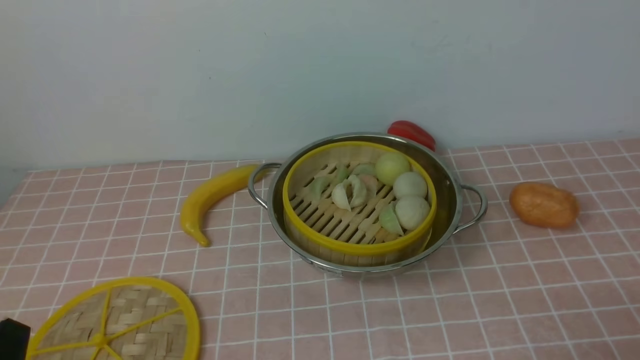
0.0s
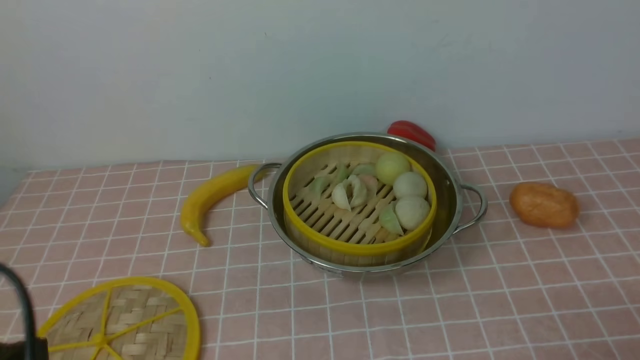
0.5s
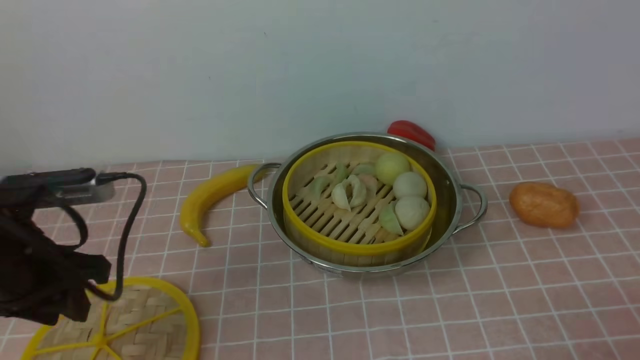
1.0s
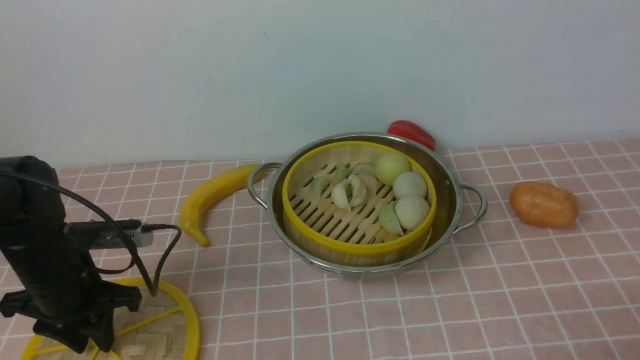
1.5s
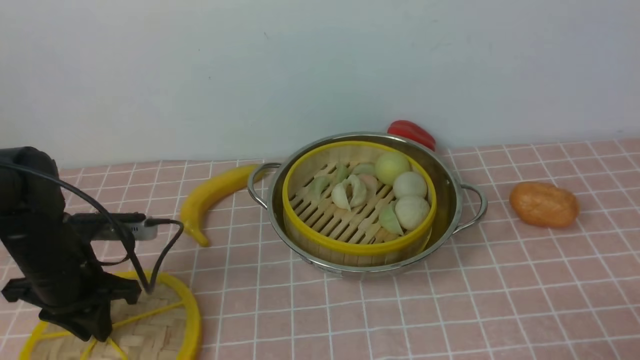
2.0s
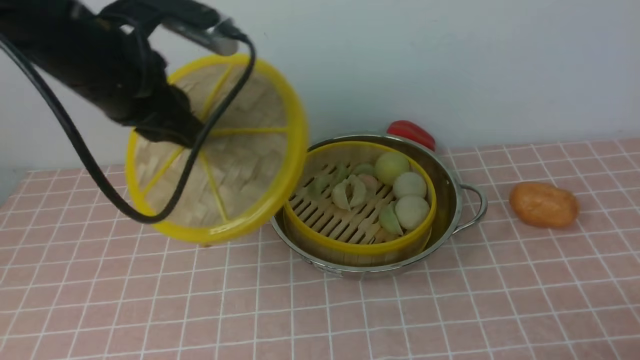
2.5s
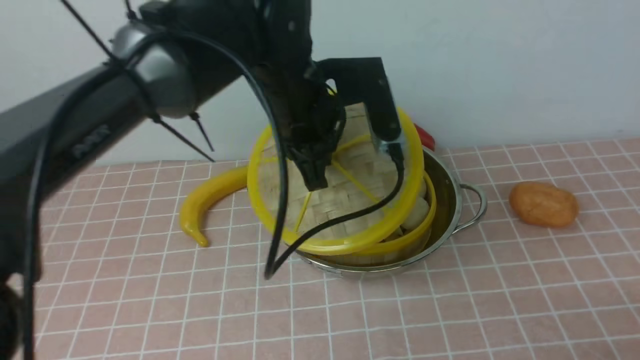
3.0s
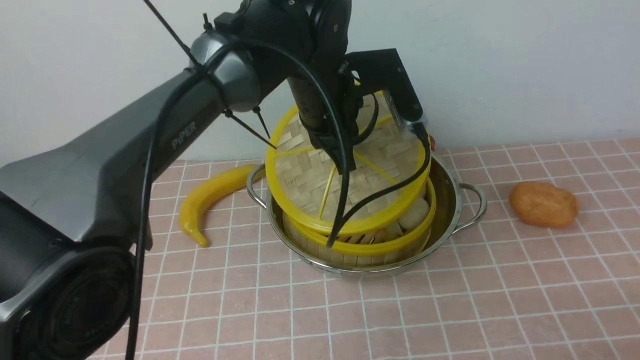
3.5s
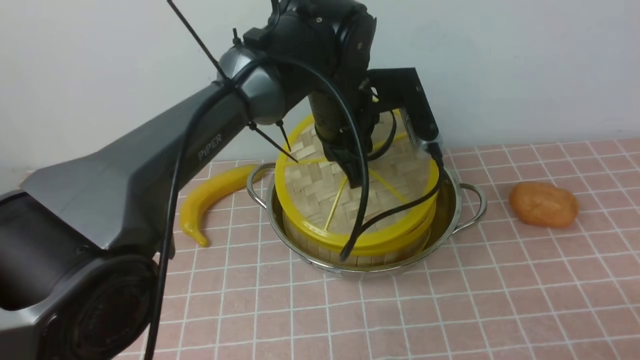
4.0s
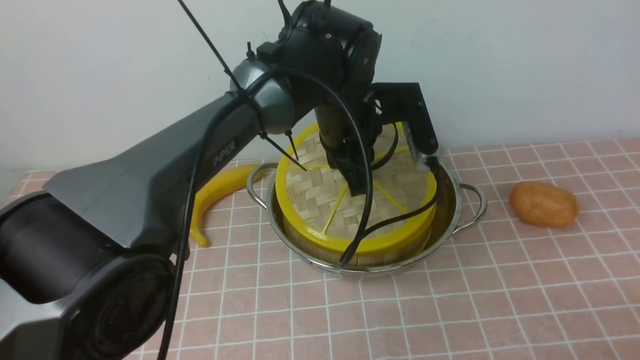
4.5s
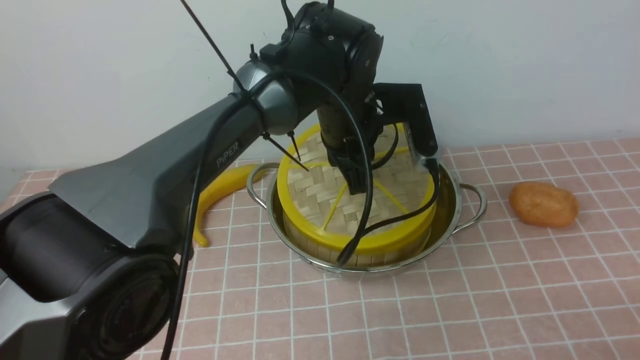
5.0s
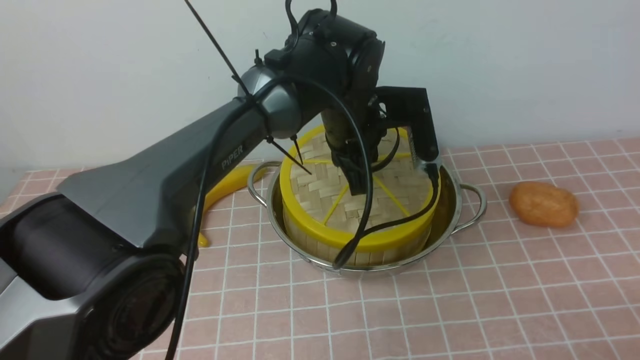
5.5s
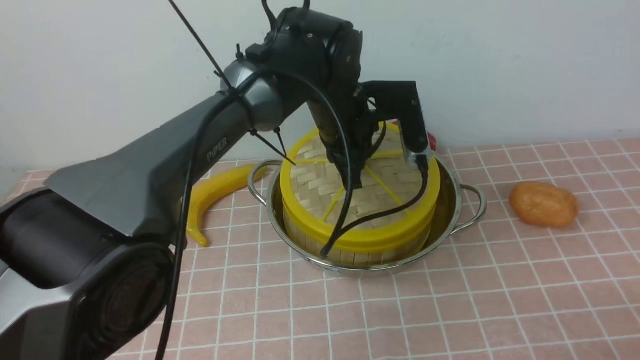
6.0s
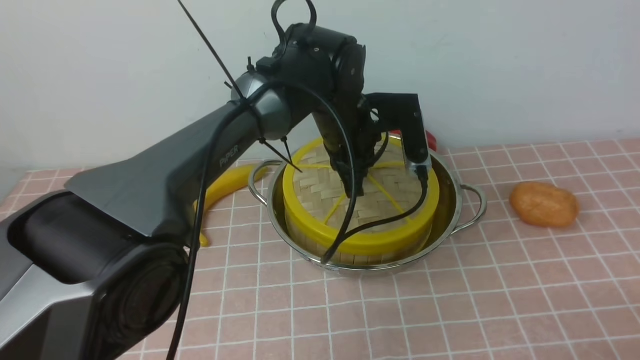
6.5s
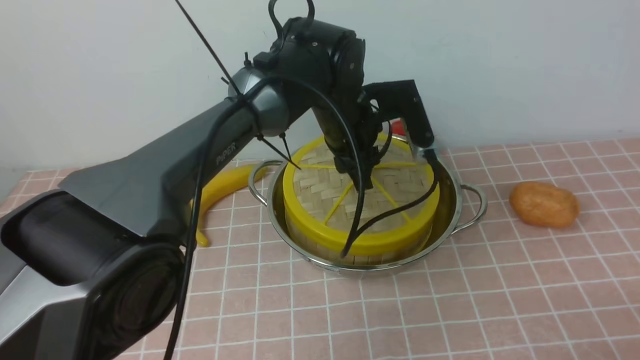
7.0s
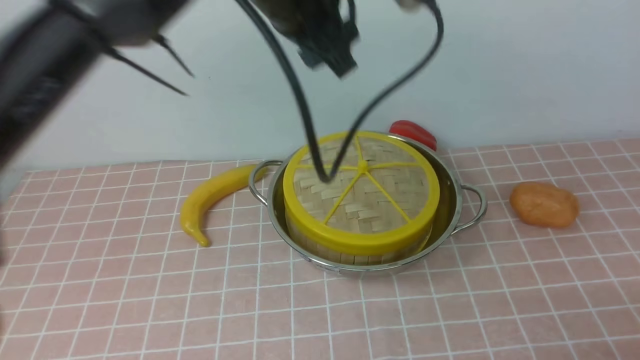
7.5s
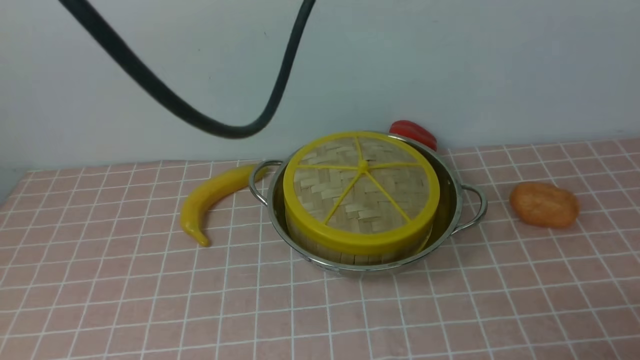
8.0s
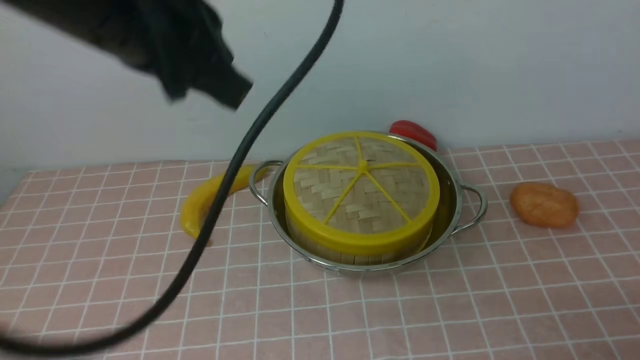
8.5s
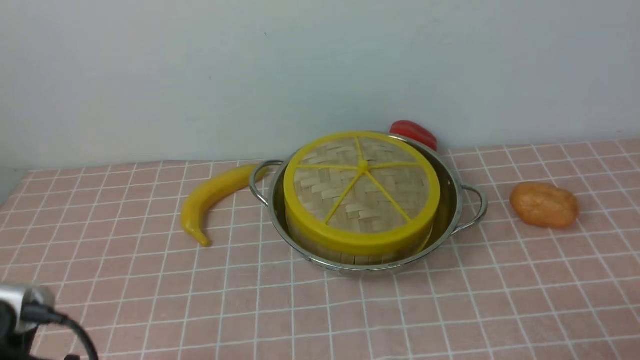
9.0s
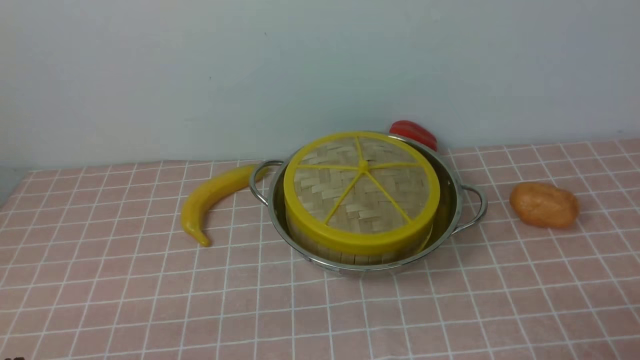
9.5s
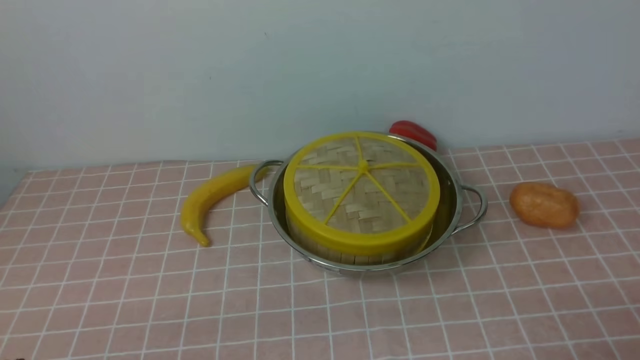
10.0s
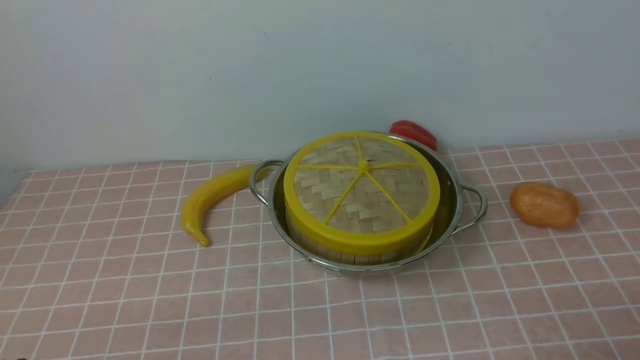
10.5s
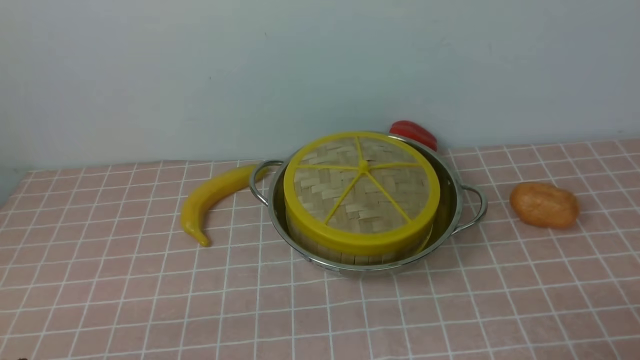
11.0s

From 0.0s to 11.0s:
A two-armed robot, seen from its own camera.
Task of the whole recording: place the steamer in the pot on the pink tablecloth, and put the lid on the steamer.
Step, from 0.0s to 2.0s: use the left arm to lift the lid of the steamer.
Step, from 2.5s to 7.0s: use the left arm to place the steamer lid on the steamer.
From 0.0s to 2.0s: The left gripper shifts roughly 25 cm forward.
From 2.0s to 3.5s: The left gripper travels to the right, forward and upward by about 30 cm.
From 5.5s to 7.5s: The left gripper goes about 10 cm upward, and opens up.
From 7.5s to 9.0s: The left gripper heads backward and to the left, covering about 35 cm, and closes up.
From 9.0s to 11.0s: The left gripper travels downward and backward by some 10 cm.

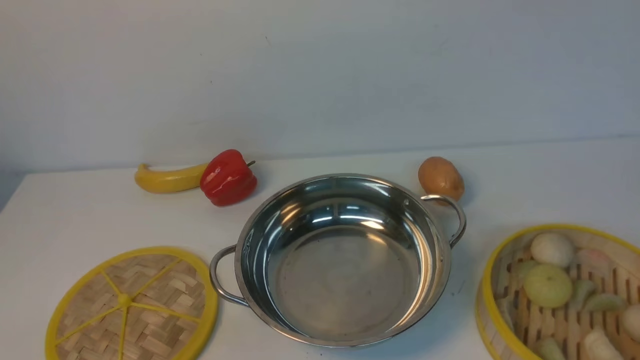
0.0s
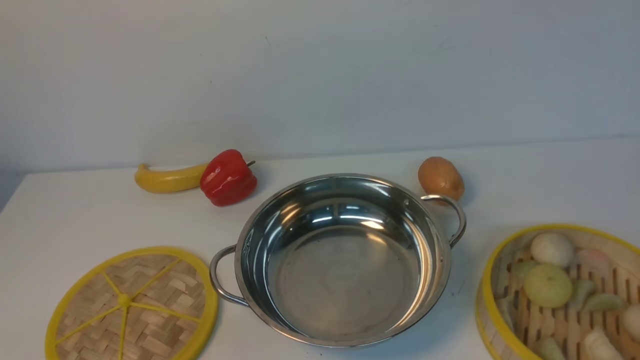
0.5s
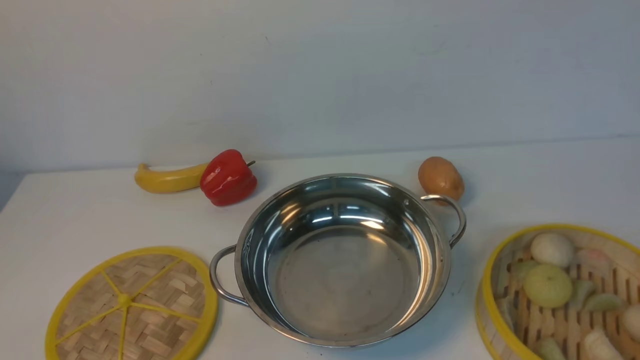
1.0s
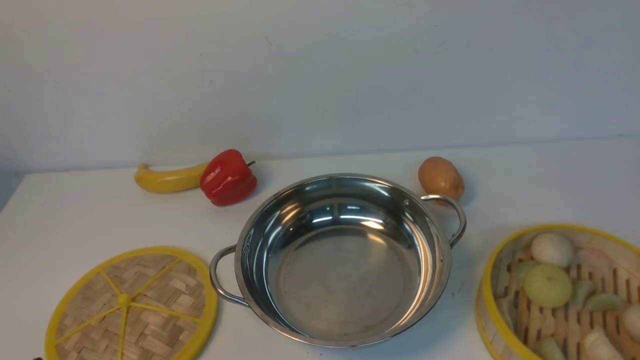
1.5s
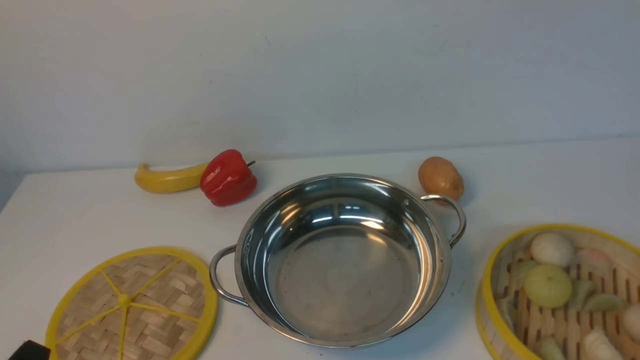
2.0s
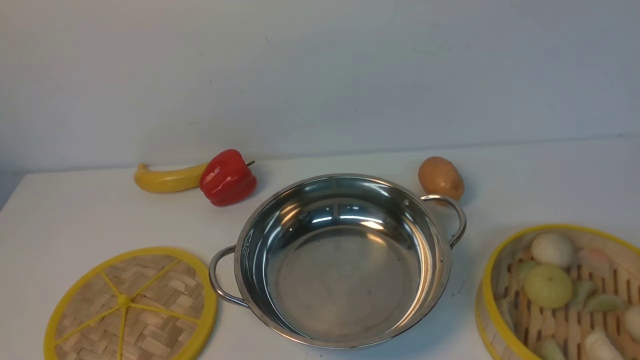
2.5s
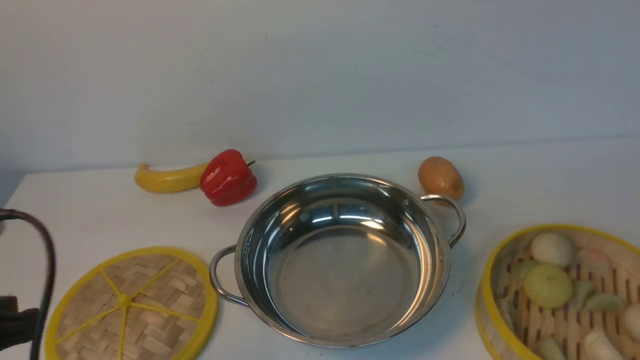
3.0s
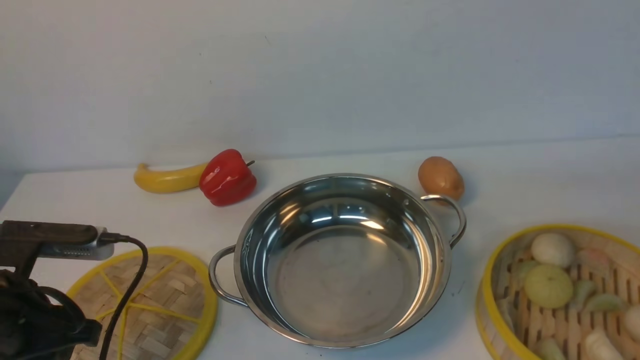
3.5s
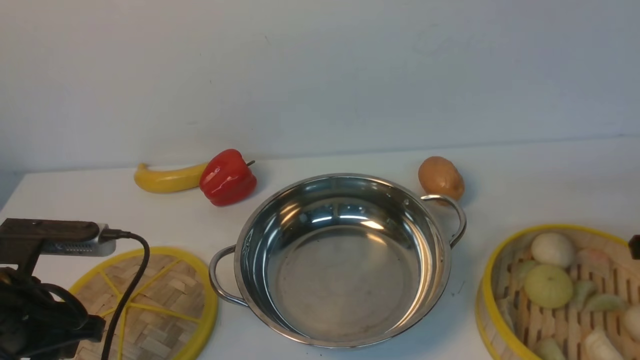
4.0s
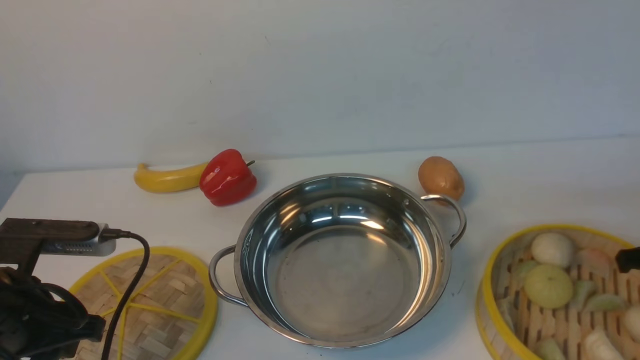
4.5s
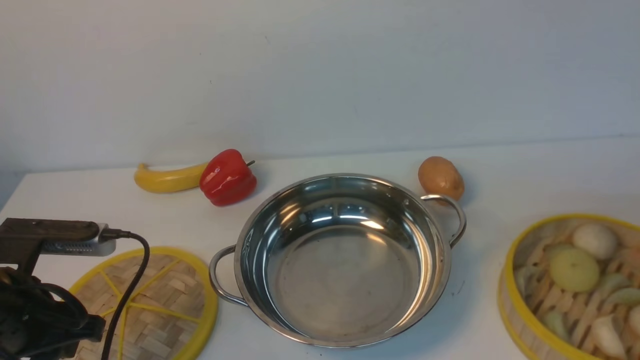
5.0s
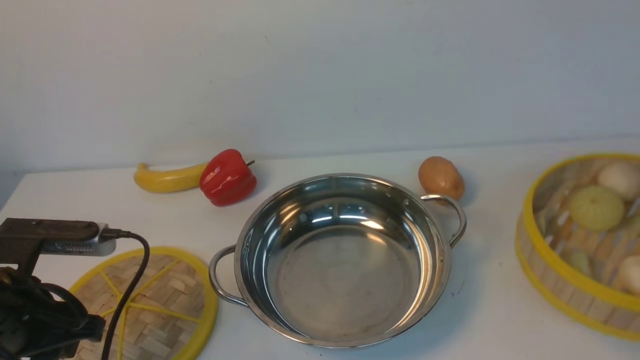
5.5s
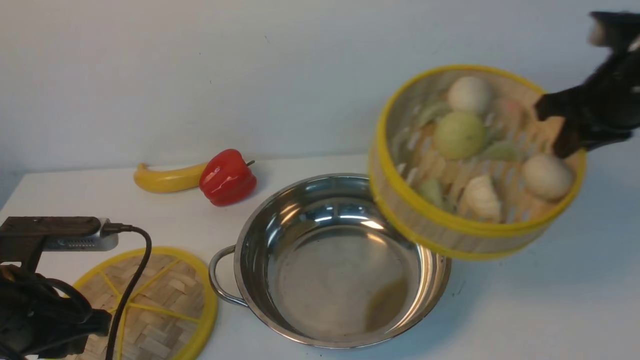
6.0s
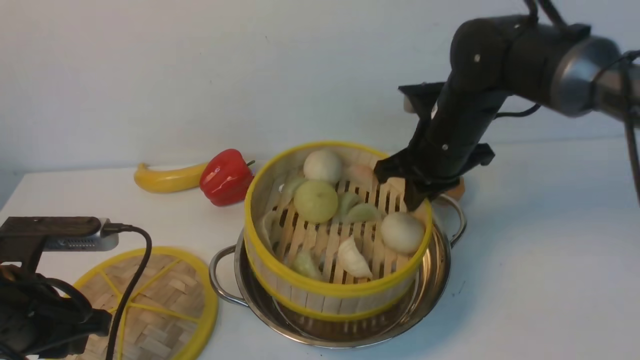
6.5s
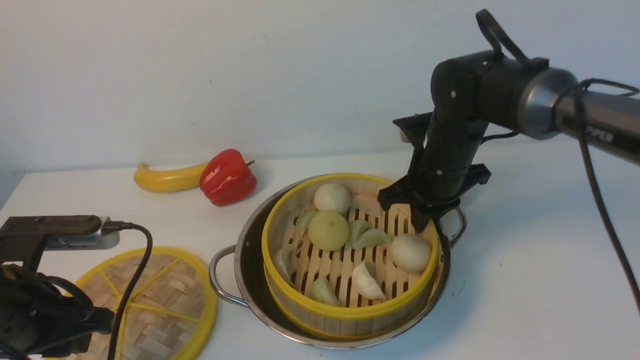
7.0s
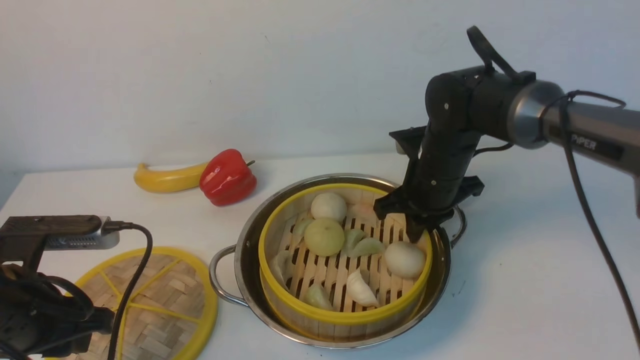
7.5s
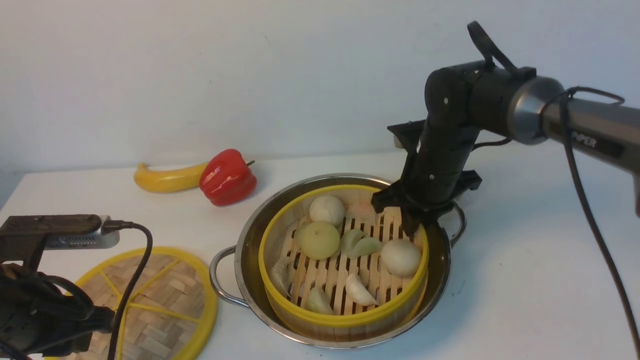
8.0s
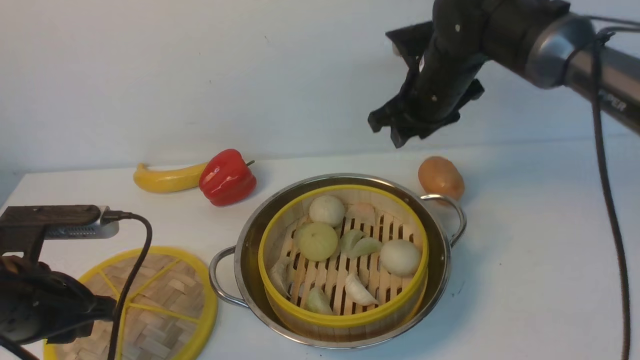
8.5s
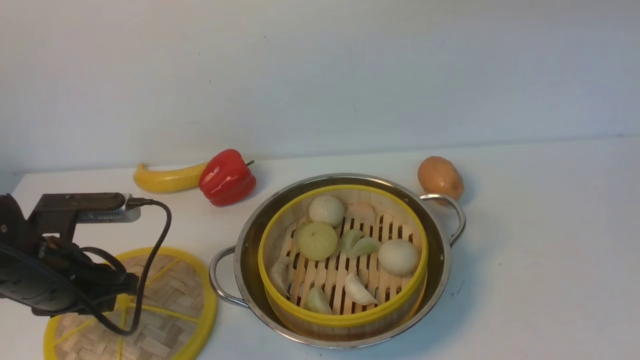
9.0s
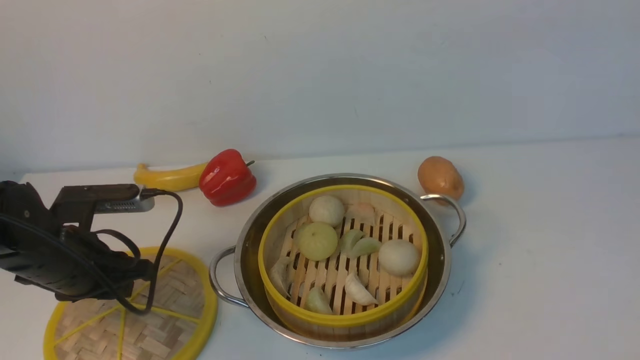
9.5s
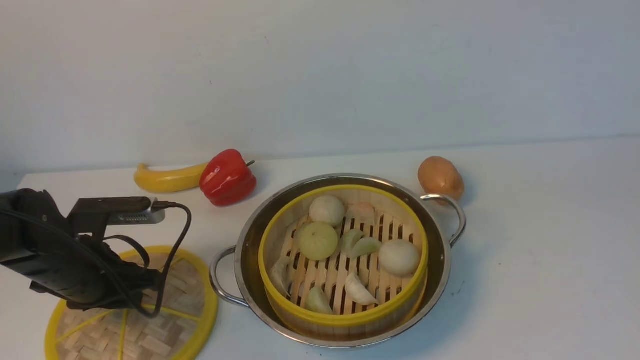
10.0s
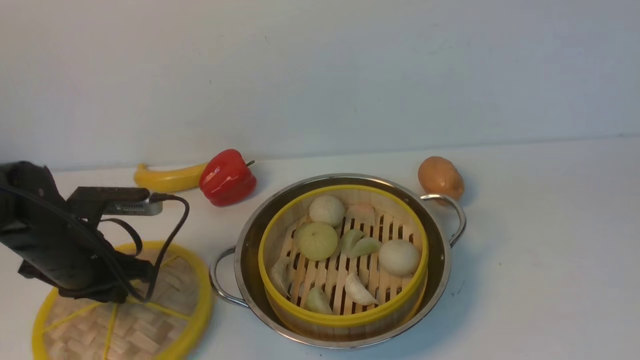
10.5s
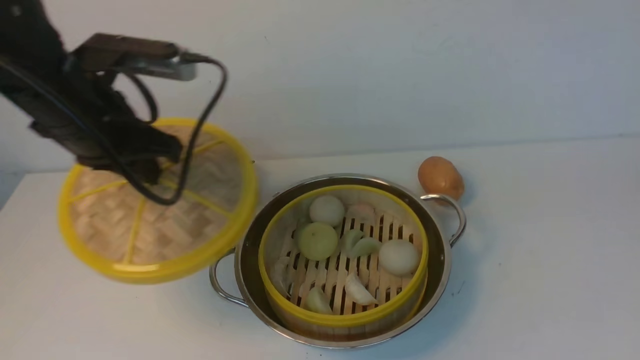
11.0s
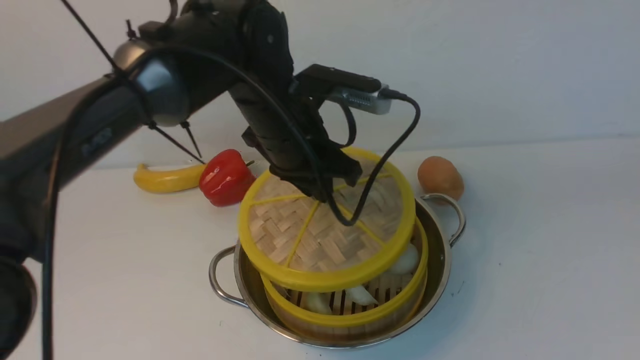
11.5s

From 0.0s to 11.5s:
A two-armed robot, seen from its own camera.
Task of the whole recording: place the steamer in the pot on the white table, and put the lid on the steamer.
Step, from 0.0s to 5.0s: use the right arm to lift the steamer closest to it.
Step, from 5.5s to 8.5s: use the right arm to put the steamer into the iron steamer pot in the middle.
Step, from 9.0s to 10.5s: use the left arm to lift the lid of the steamer.
From 2.0s to 4.0s: The left gripper heads forward, covering about 15 cm.
From 4.0s to 6.0s: The right gripper shifts about 15 cm upward, to the left and forward, and closes its fingers.
From 6.0s to 7.5s: The right gripper moves to the left and downward, roughly 20 cm.
From 7.5s to 9.5s: The left gripper shifts roughly 10 cm forward; the right gripper shifts some 40 cm upward, backward and to the right, and opens, then closes once more.
From 9.5s to 11.5s: The right gripper is displaced backward by roughly 5 cm. Meanwhile the left gripper travels to the right and upward by approximately 25 cm.
